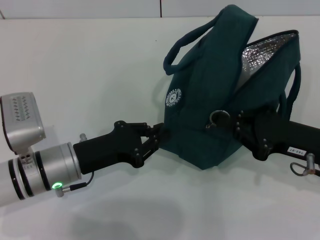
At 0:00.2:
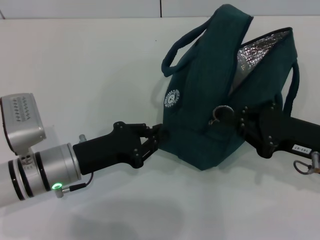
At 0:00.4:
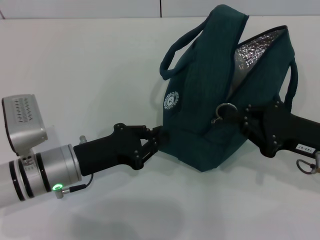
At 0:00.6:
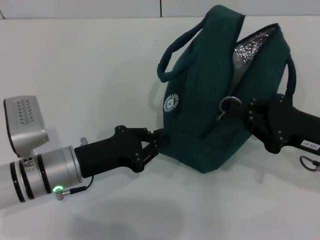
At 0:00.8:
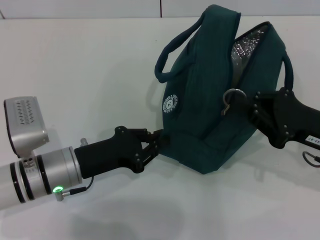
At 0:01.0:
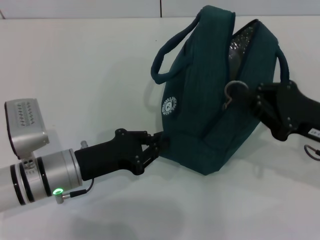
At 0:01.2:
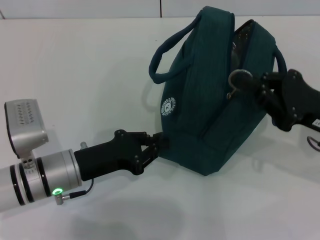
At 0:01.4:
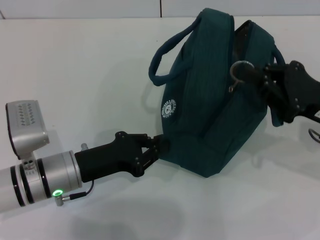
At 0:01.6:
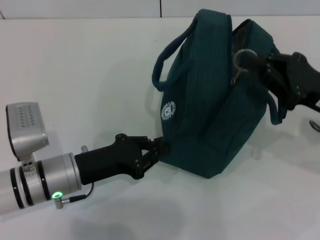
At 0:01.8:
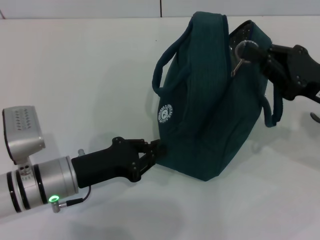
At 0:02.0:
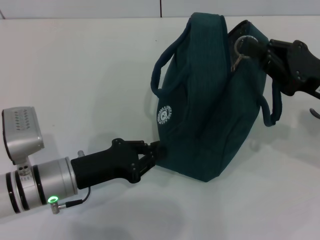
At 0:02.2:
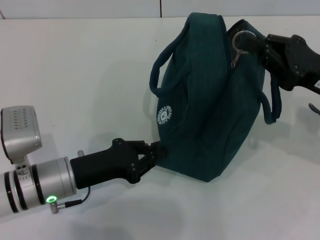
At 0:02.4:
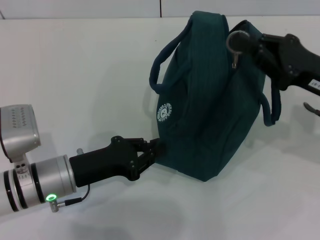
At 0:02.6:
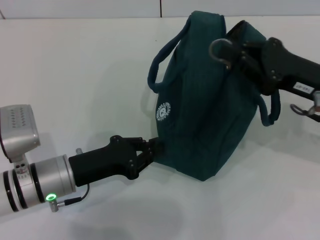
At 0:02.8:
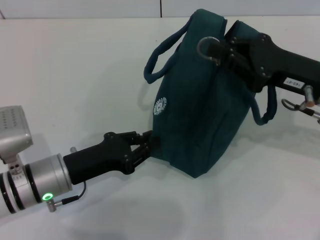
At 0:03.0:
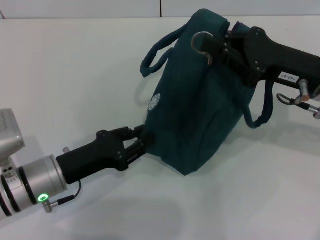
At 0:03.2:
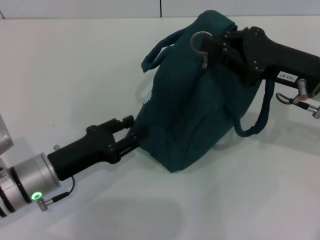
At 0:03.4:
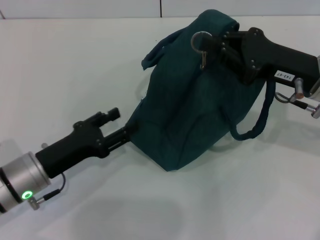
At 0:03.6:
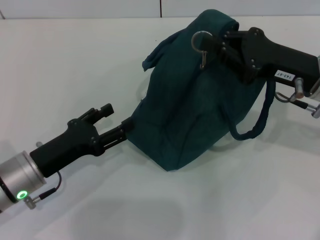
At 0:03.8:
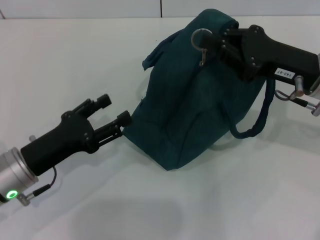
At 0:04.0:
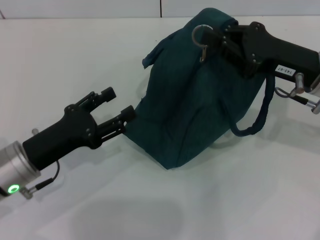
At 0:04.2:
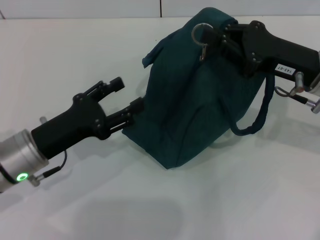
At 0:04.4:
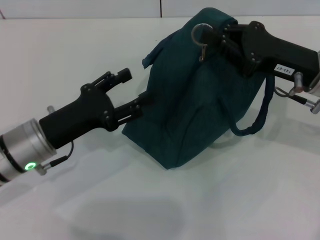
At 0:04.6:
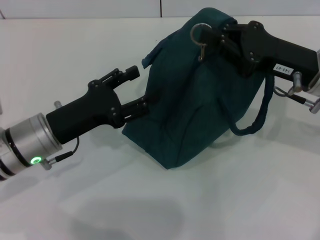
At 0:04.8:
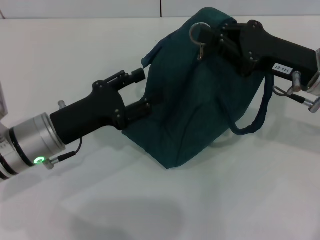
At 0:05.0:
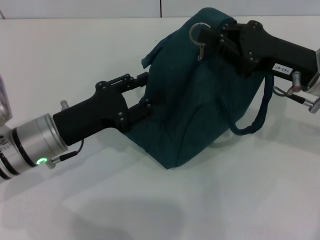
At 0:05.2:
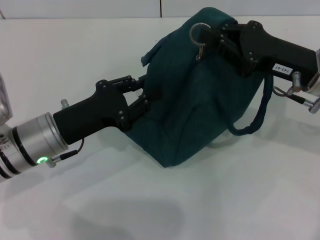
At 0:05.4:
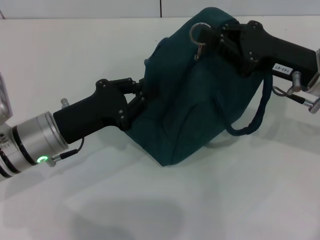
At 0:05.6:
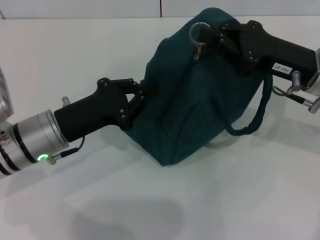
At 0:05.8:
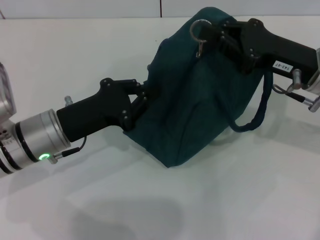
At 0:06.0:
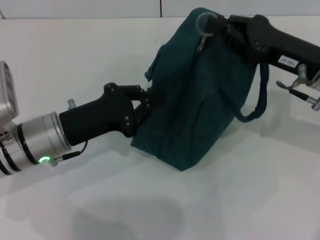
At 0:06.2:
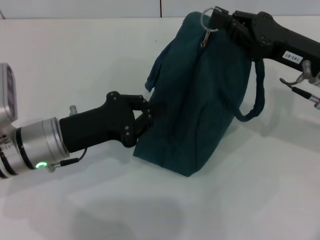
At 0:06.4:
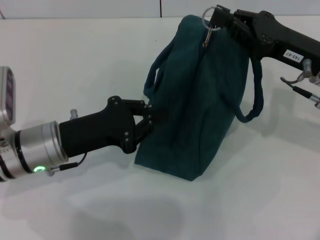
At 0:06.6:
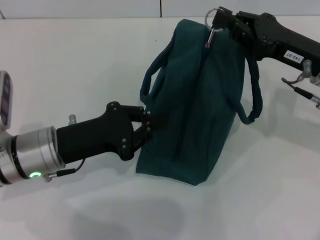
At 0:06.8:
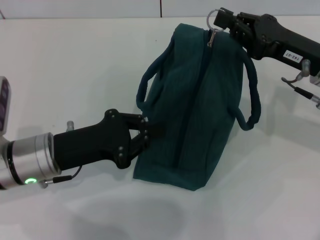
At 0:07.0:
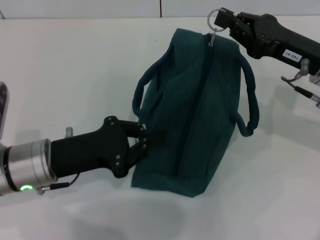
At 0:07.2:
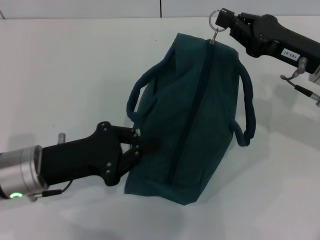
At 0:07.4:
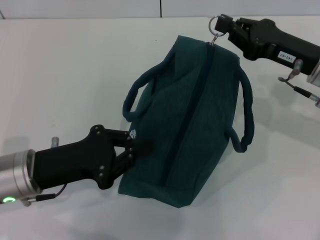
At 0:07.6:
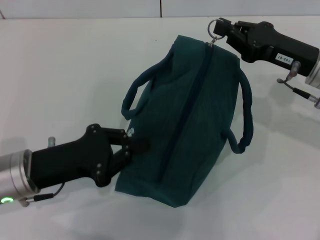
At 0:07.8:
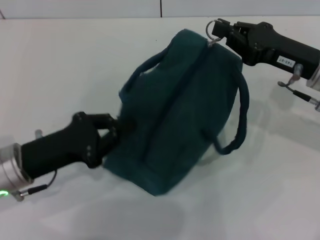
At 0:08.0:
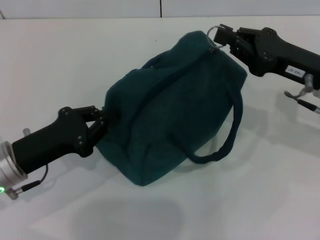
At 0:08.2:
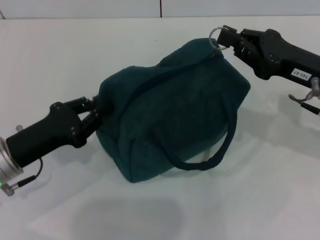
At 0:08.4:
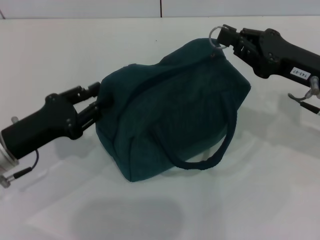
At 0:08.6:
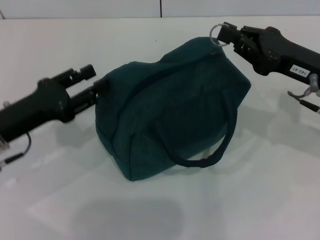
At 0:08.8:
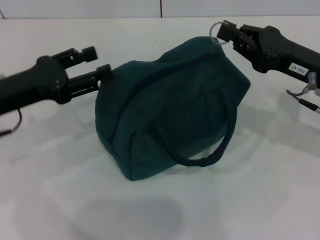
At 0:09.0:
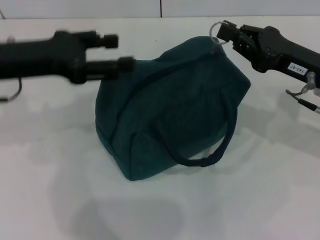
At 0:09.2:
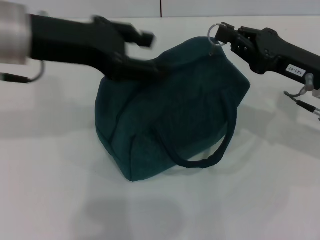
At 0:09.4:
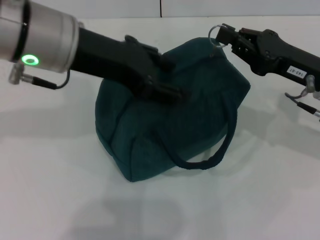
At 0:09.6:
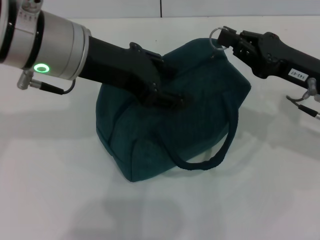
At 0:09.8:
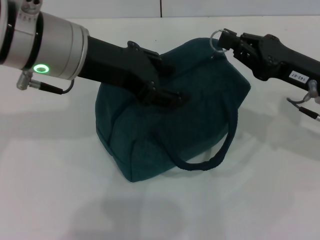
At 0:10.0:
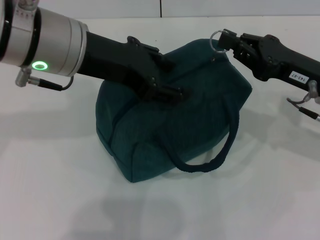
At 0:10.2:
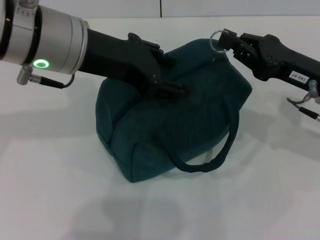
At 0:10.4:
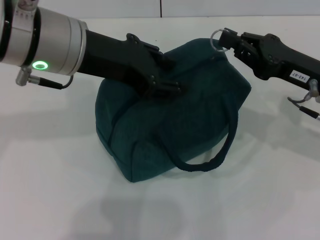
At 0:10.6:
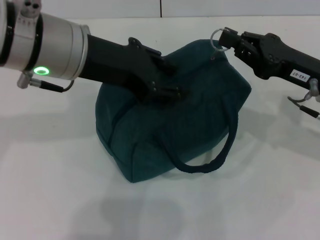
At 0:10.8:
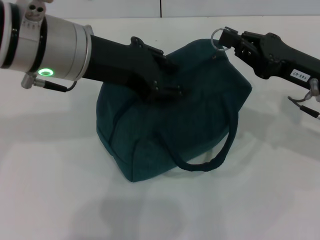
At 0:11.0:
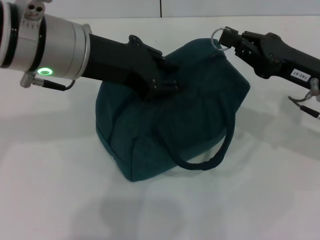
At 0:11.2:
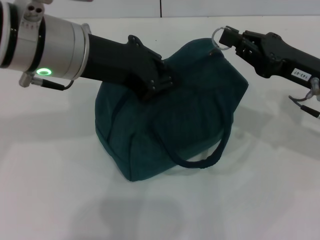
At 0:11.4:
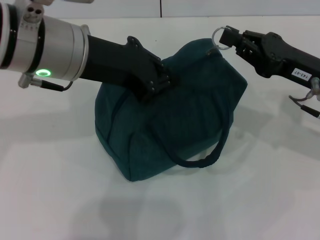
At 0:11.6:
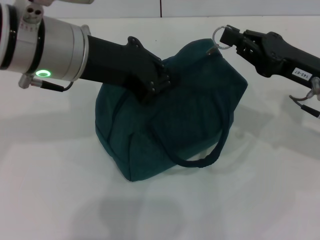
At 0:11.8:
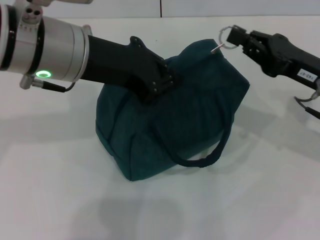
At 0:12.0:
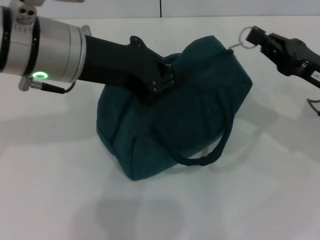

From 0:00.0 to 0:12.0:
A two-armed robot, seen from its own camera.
From 0:01.6 to 0:03.0: The right gripper shifts by about 5 cm.
From 0:03.0 to 0:04.4: The left gripper opens up.
From 0:04.4 to 0:06.0: The left gripper closes up.
From 0:06.0 to 0:07.6: The left gripper changes place by some 5 cm.
From 0:07.6 to 0:09.0: The left gripper is displaced upward and forward by some 15 cm, and opens its fingers.
From 0:09.0 to 0:10.4: The left gripper moves to the right and upward, about 10 cm.
From 0:10.4 to 0:12.0: The left gripper closes its fingers.

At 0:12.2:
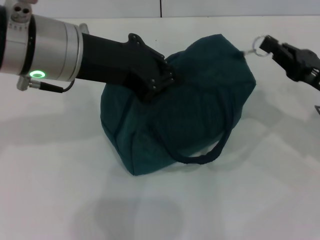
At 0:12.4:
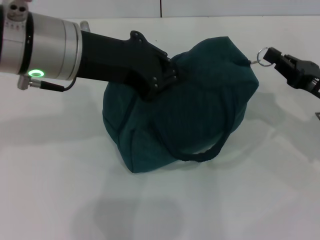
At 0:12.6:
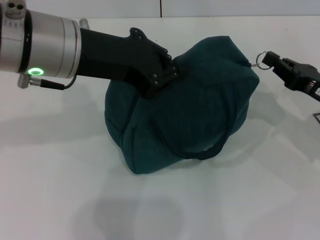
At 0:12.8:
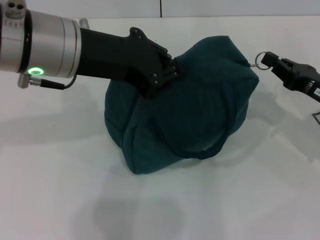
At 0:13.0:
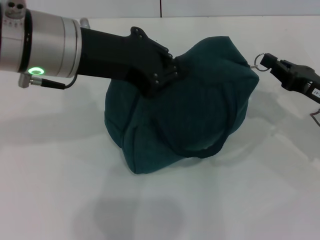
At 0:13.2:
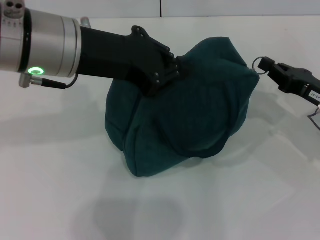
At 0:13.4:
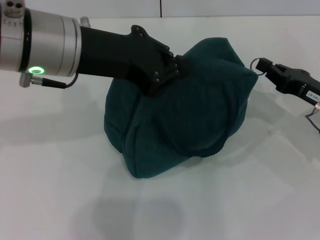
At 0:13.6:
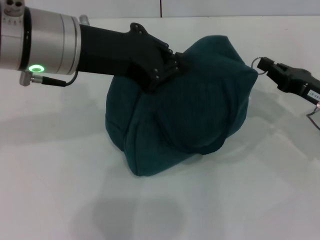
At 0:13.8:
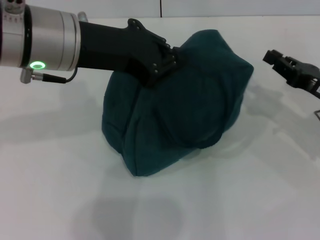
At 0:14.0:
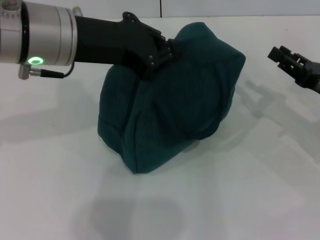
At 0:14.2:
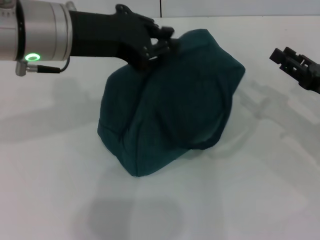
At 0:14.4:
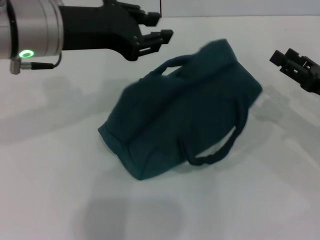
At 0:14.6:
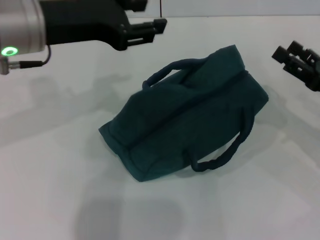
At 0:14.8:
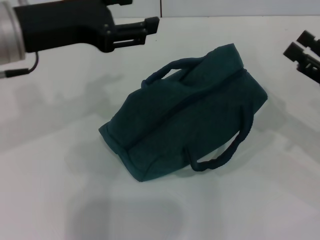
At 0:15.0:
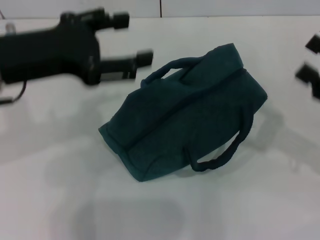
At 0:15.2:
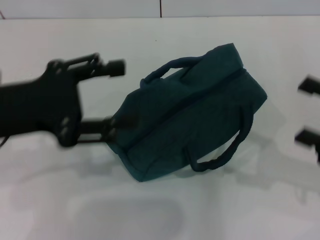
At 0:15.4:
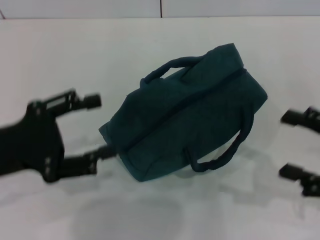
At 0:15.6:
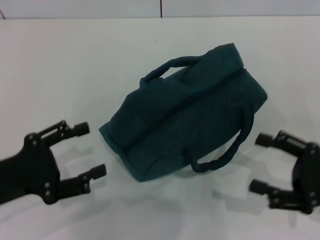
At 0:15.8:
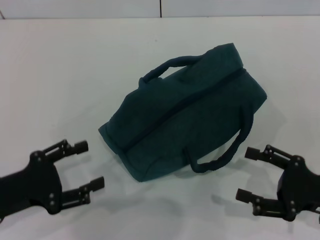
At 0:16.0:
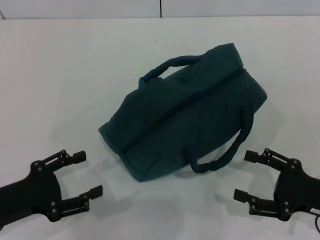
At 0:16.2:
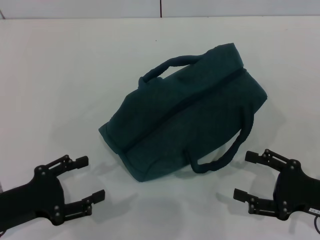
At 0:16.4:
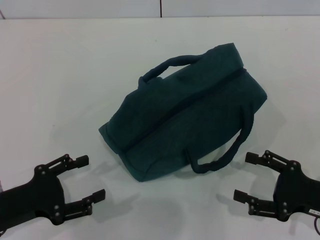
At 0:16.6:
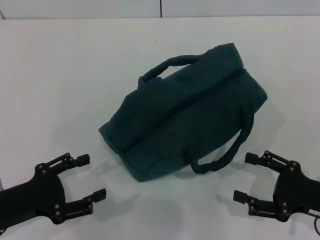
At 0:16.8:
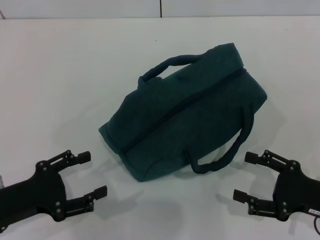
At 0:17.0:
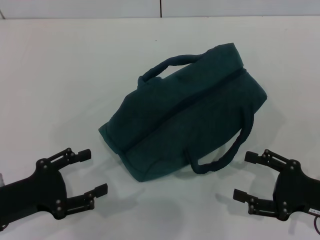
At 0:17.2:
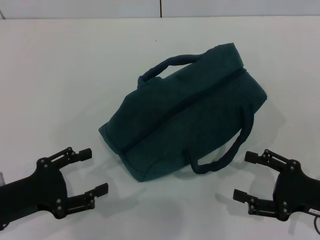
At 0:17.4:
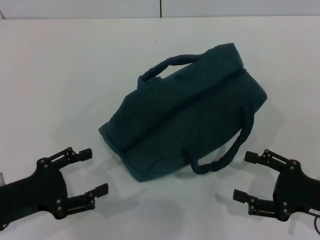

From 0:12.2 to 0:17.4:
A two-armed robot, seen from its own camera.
Step, from 0:13.8 to 0:14.2: Hold the lunch bag with your left hand.
From 0:12.2 to 0:14.0: There are only small adjustments of the grippers.
From 0:14.0 to 0:15.6: The left gripper goes about 25 cm downward, to the left and backward, and opens its fingers. Meanwhile the right gripper travels backward by roughly 10 cm, and opens.
From 0:15.6 to 0:17.4: The left gripper is displaced downward by roughly 5 cm.
